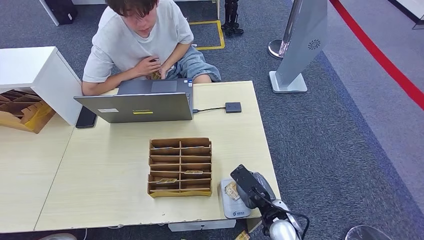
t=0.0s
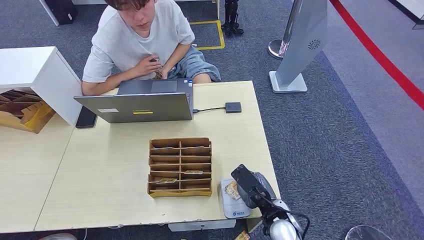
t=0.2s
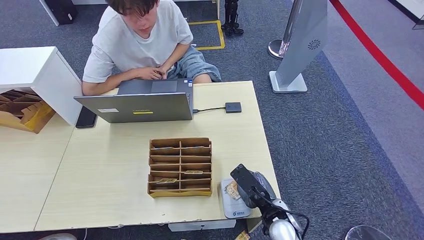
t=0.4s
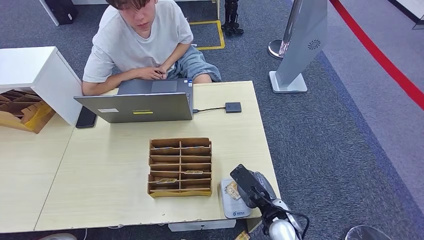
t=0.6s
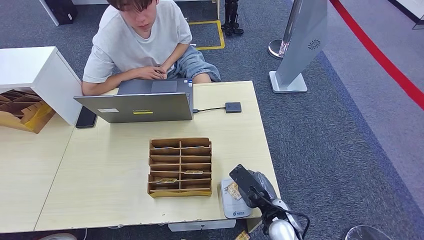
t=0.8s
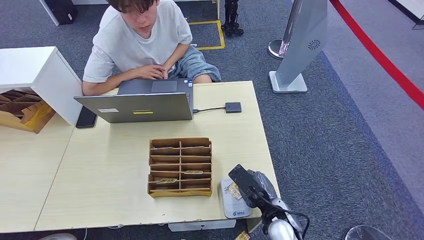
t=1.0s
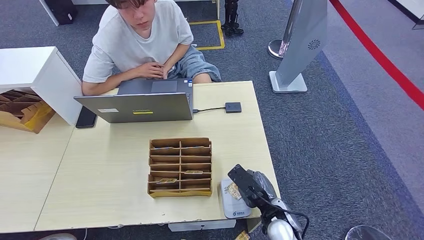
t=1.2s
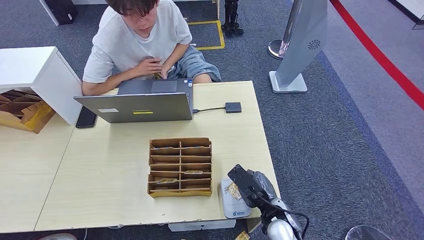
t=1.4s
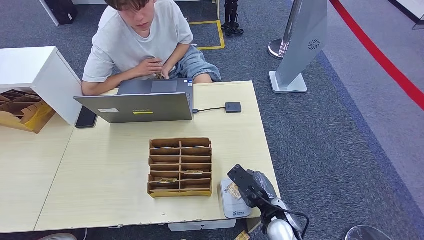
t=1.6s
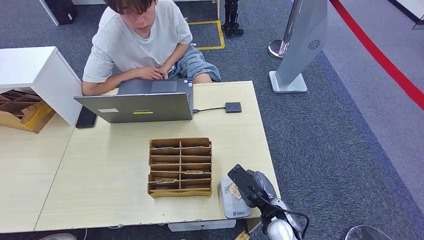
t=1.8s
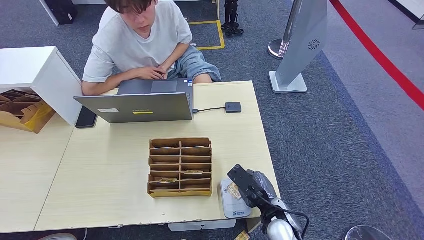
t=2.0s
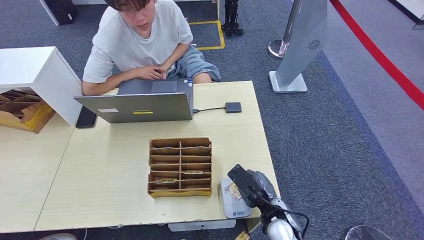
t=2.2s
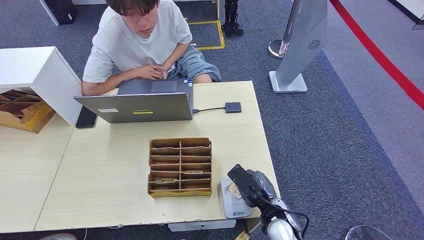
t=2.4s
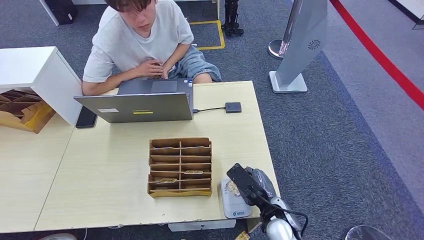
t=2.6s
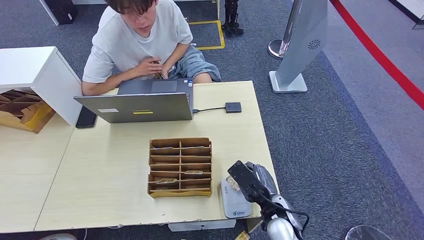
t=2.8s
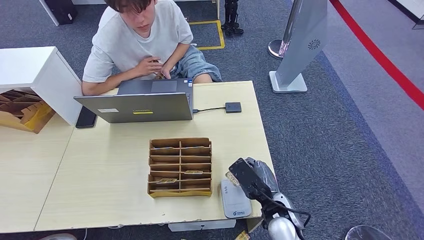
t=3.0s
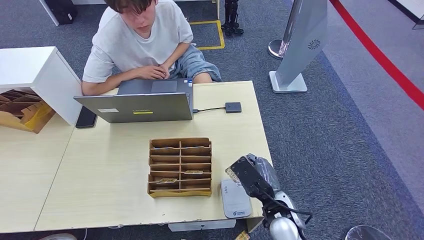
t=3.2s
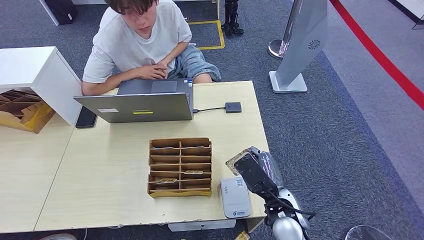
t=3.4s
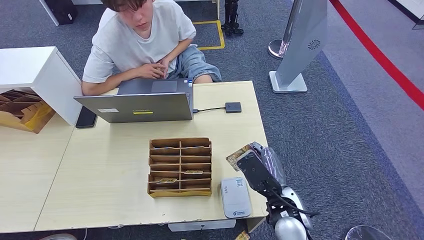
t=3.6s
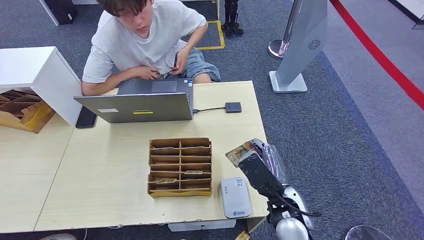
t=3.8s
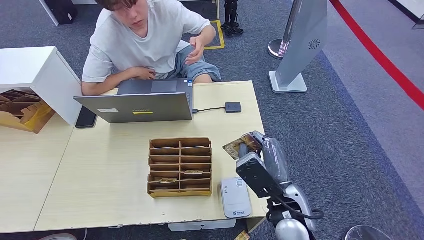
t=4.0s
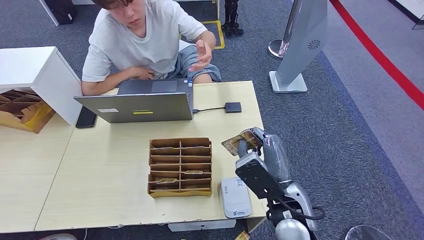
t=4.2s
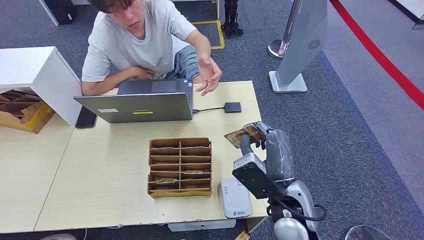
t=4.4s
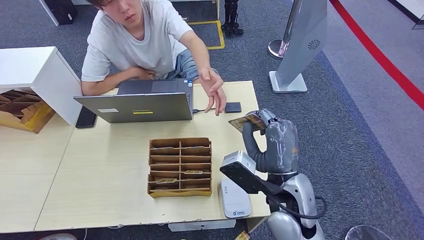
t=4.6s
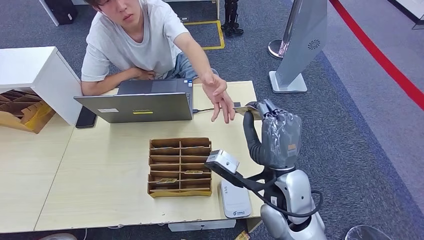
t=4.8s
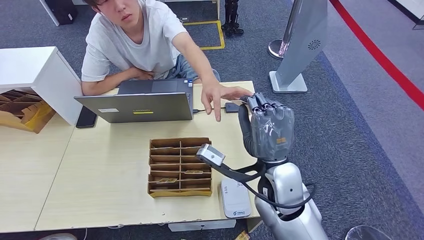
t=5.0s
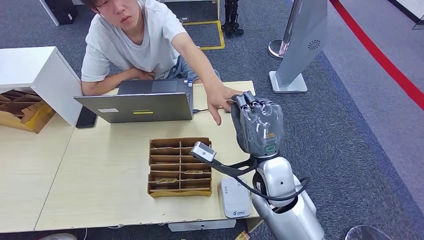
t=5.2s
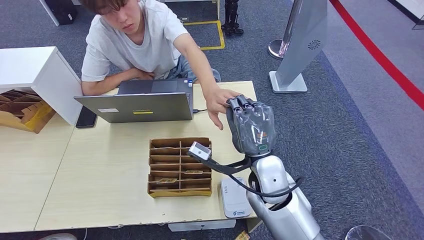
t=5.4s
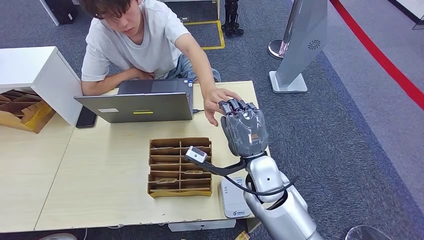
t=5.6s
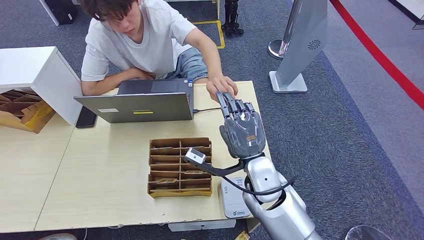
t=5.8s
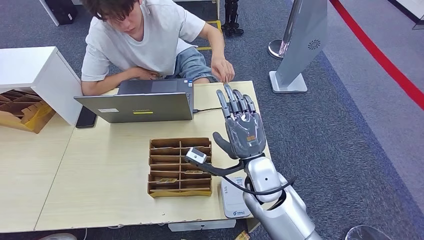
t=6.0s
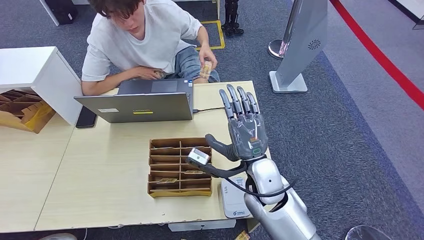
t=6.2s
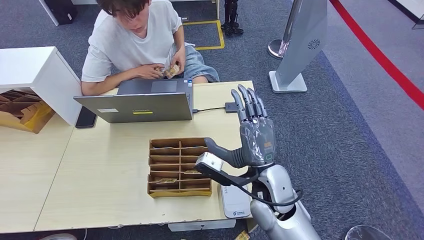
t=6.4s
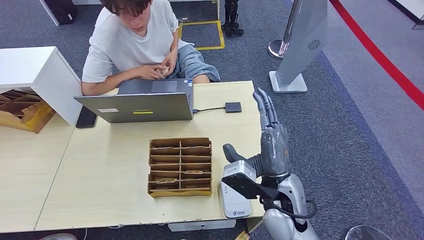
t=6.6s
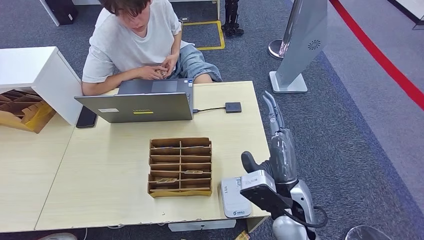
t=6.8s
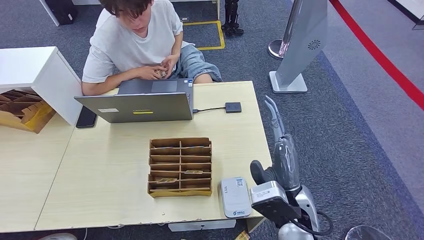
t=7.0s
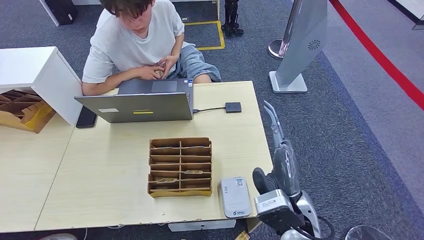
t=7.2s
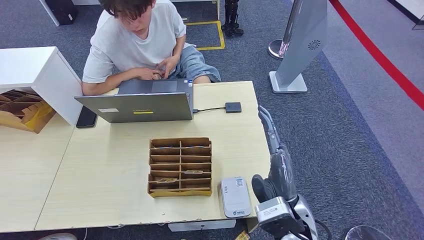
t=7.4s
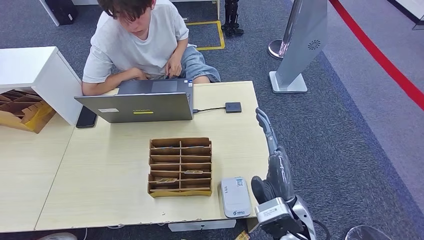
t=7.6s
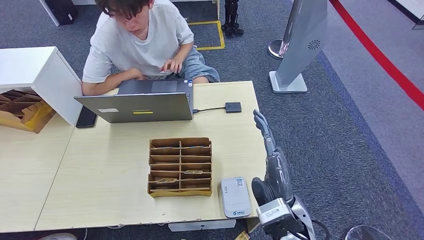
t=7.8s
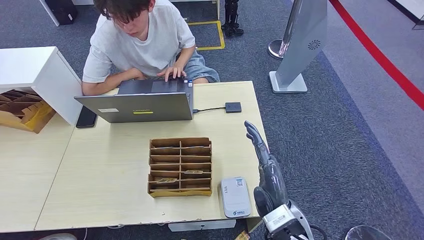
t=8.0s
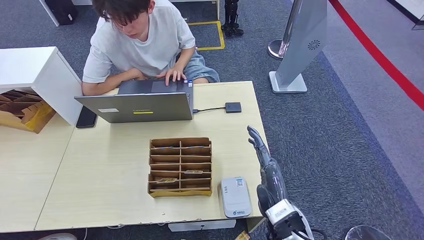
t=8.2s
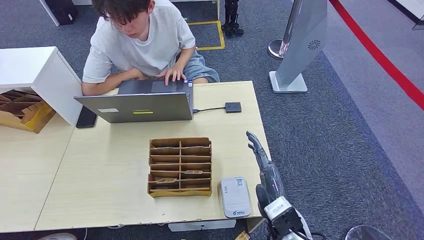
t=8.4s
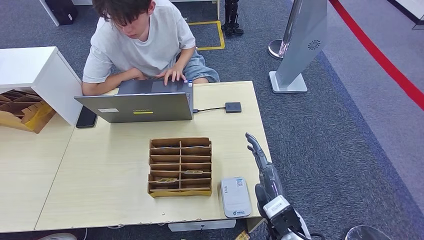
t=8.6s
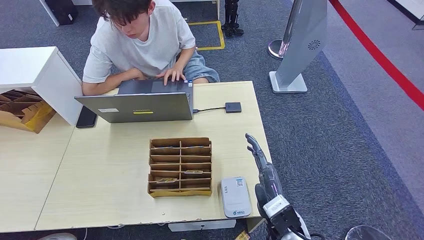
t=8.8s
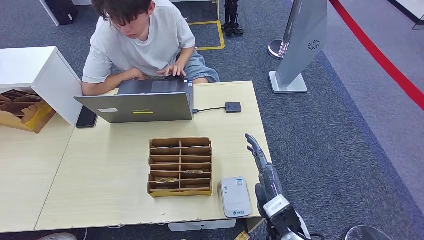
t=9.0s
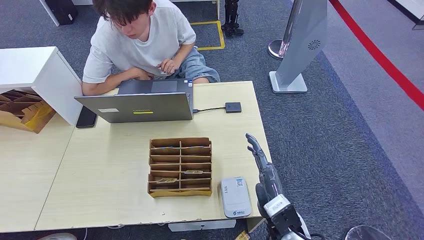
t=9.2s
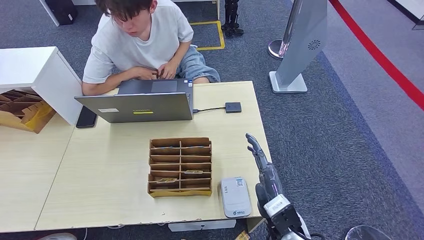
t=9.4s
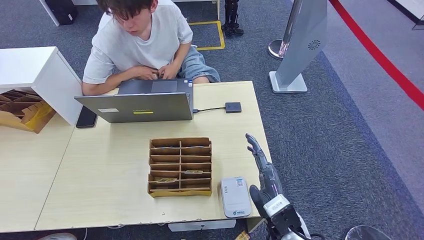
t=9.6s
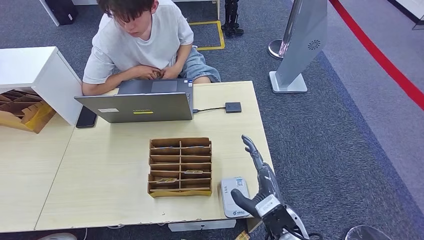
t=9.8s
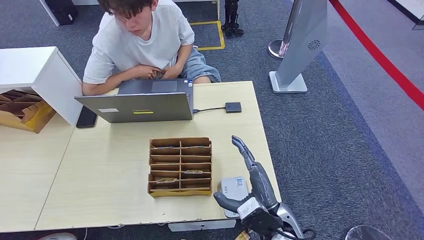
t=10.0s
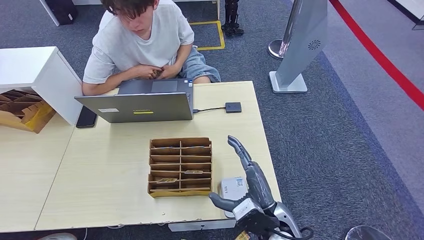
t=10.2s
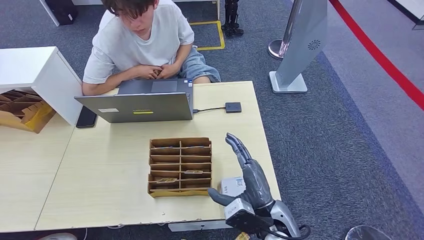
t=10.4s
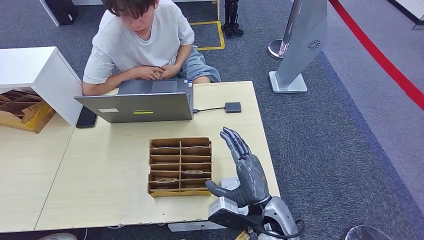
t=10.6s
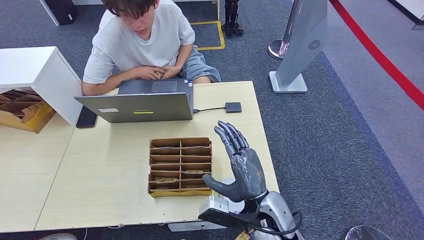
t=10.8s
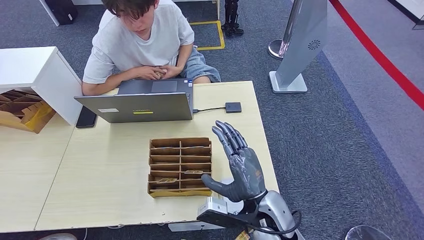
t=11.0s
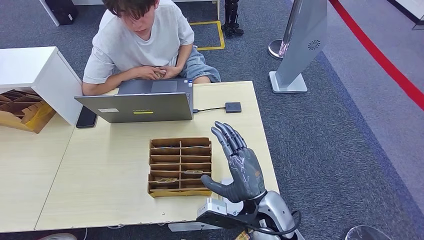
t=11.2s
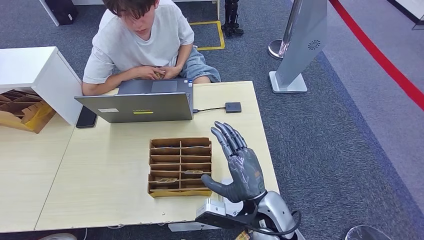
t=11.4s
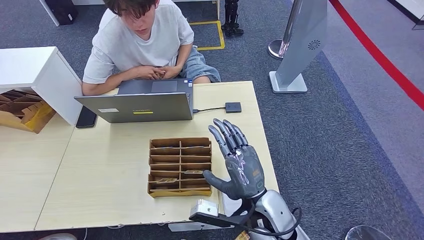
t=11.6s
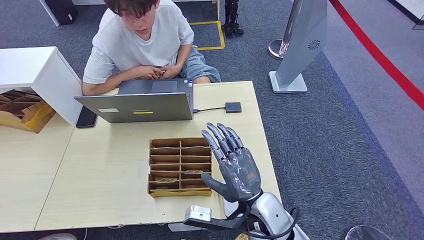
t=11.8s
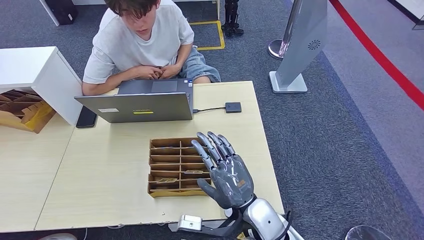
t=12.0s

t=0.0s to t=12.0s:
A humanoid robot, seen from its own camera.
Step, t=0.0s to t=7.4s: Hand the ID card to the person.
t=0.0s to t=3.0s: The hands move only a little.
t=3.0s to t=4.4s: The right hand shifts roughly 10 cm upward.
t=4.4s to t=6.0s: The right hand moves forward, some 5 cm.
t=6.0s to t=7.6s: The right hand moves backward, some 10 cm.
t=7.6s to t=9.0s: The right hand travels downward by about 5 cm.

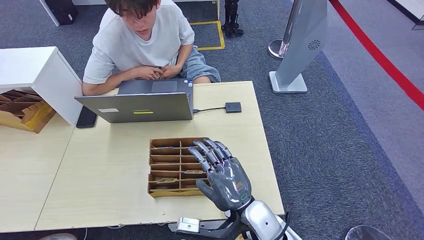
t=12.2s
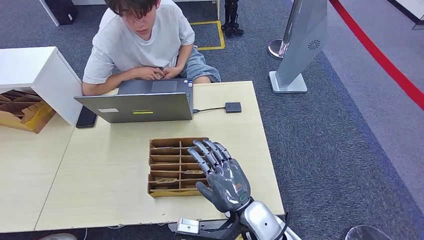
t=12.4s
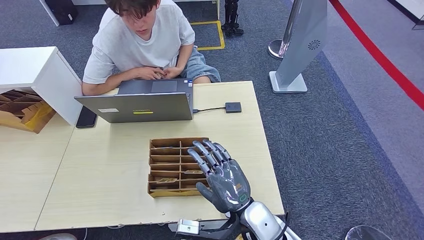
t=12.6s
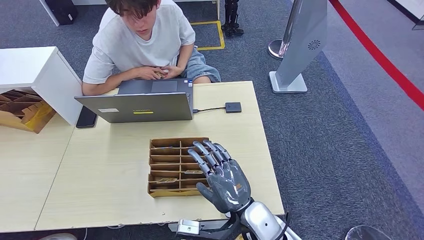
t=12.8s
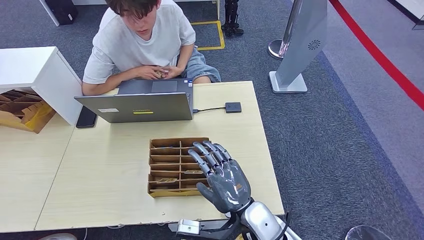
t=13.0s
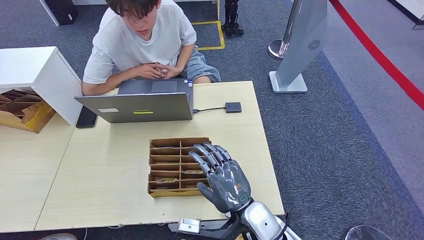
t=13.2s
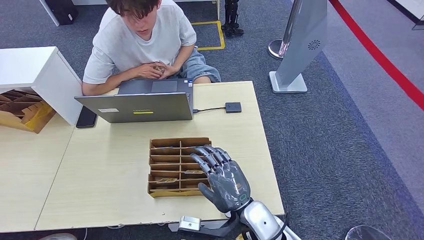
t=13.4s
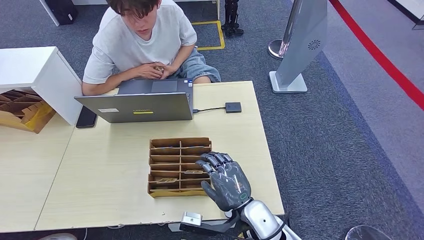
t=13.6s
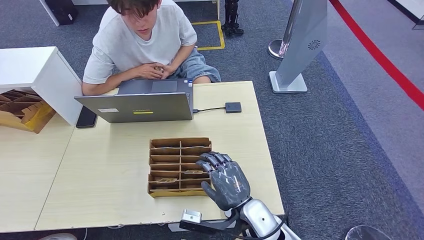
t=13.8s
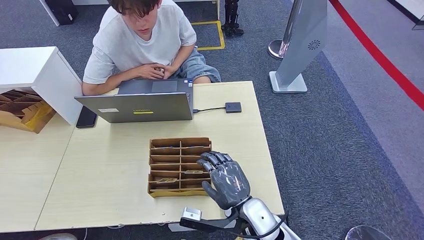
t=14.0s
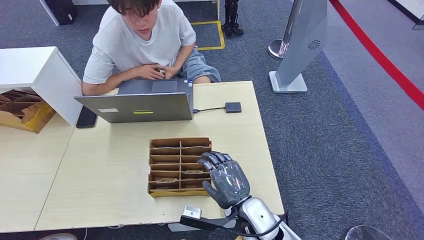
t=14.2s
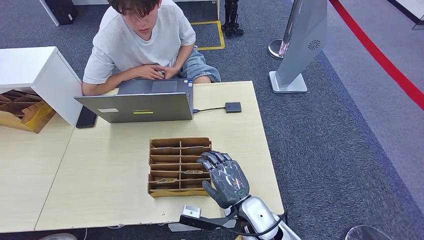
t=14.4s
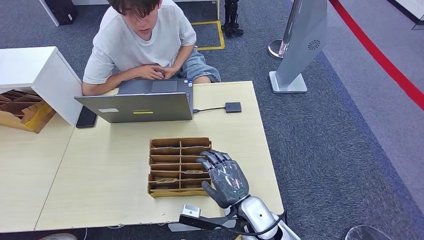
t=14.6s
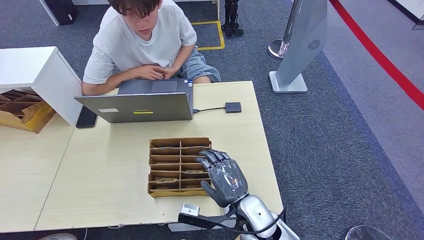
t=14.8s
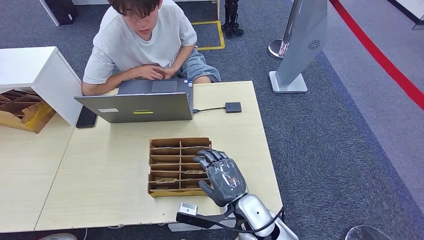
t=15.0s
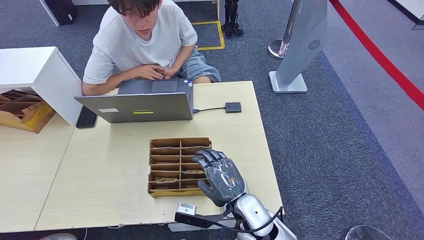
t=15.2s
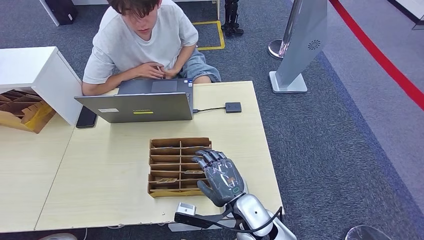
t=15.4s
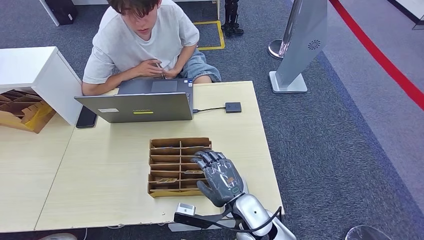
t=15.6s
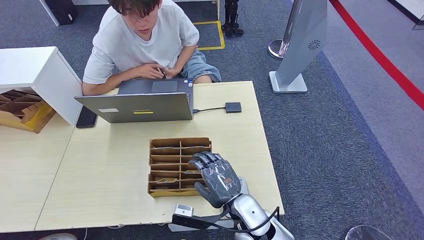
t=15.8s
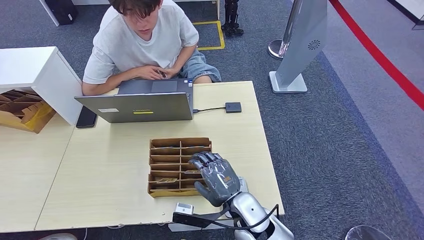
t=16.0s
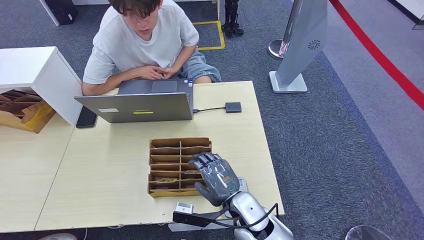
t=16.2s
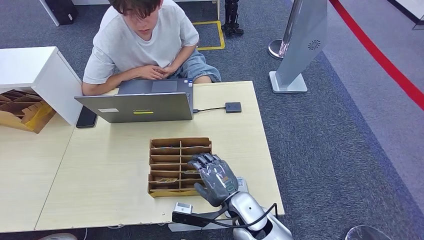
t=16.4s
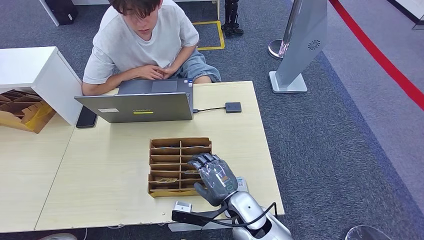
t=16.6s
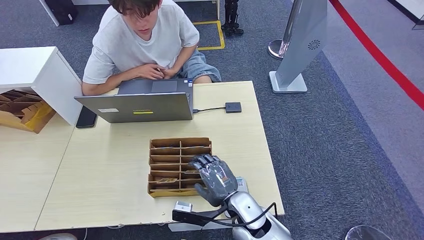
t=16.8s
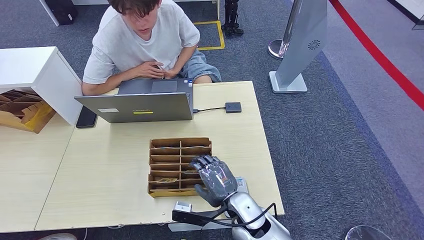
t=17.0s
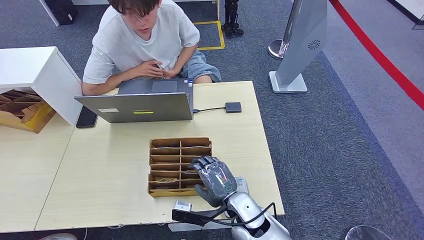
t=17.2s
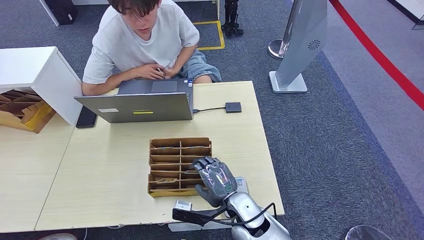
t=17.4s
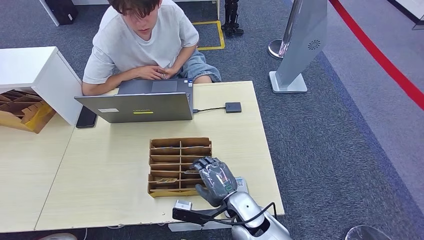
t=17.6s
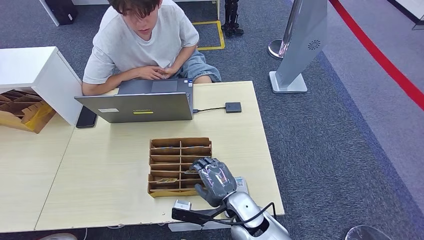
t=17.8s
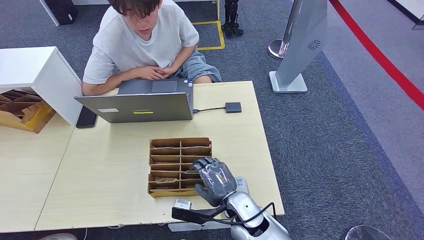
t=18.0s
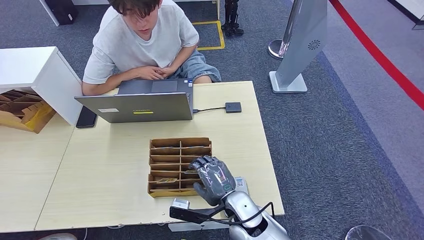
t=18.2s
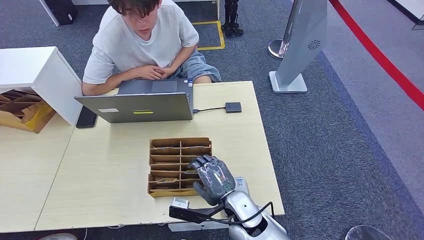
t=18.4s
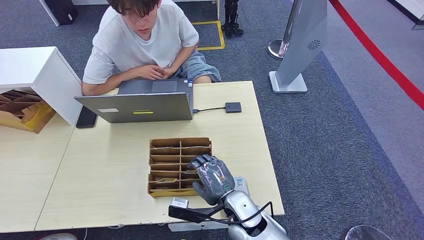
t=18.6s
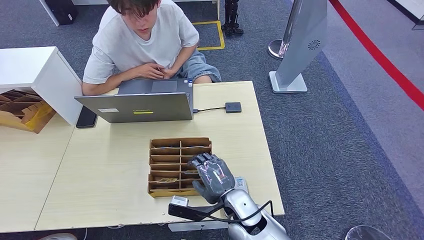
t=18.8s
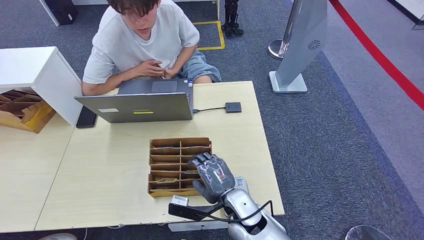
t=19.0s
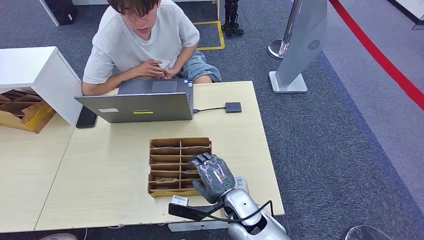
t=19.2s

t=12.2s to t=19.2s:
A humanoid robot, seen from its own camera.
t=12.2s to t=16.4s: The hands make only small movements.
t=16.4s to t=17.8s: The hands stay close to where they were, moving slightly.
t=17.8s to t=19.2s: Both hands stay about where they are.
